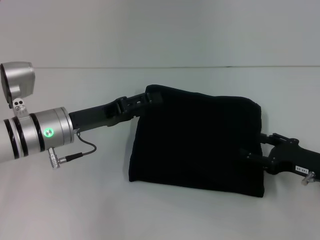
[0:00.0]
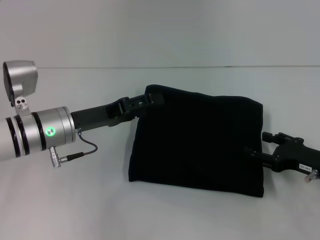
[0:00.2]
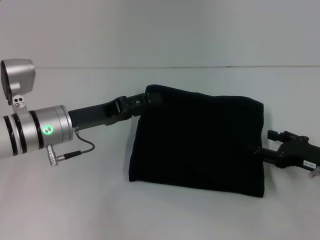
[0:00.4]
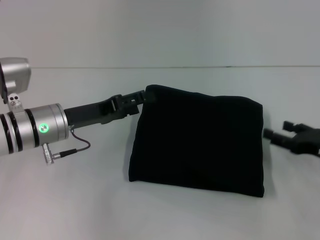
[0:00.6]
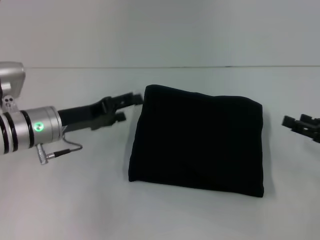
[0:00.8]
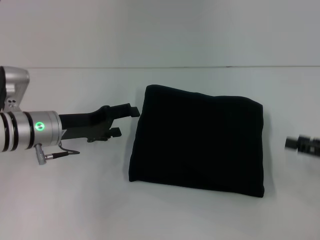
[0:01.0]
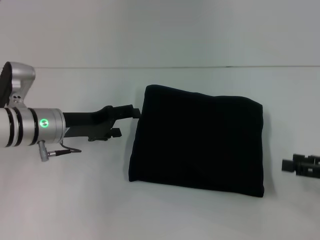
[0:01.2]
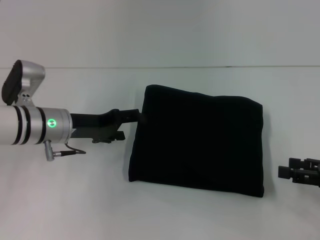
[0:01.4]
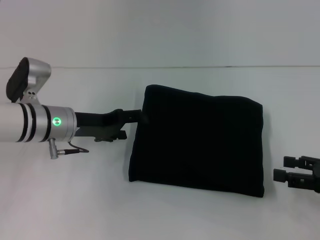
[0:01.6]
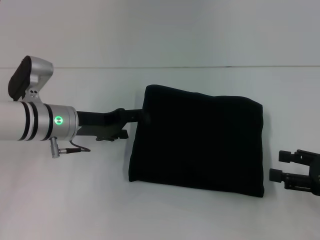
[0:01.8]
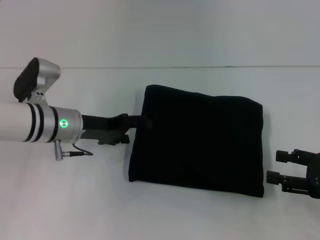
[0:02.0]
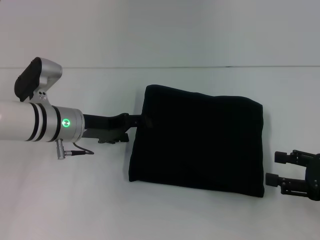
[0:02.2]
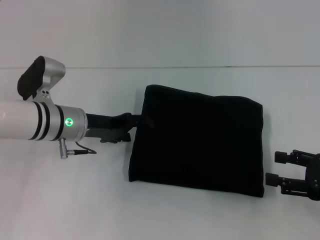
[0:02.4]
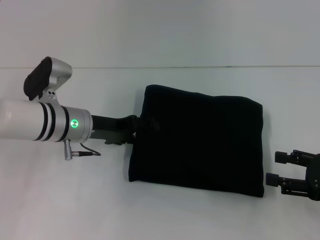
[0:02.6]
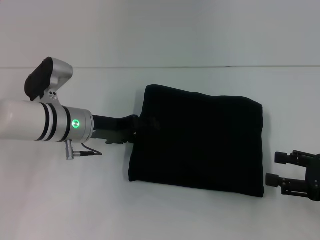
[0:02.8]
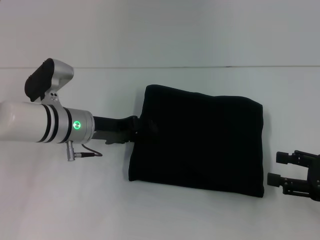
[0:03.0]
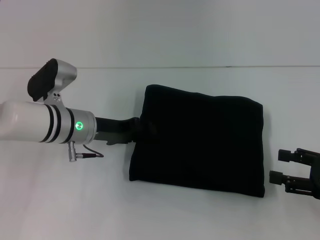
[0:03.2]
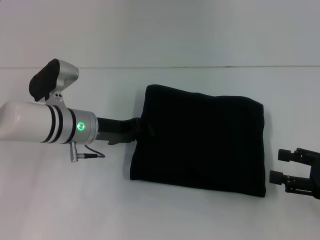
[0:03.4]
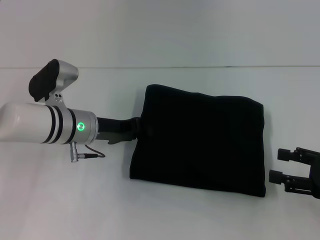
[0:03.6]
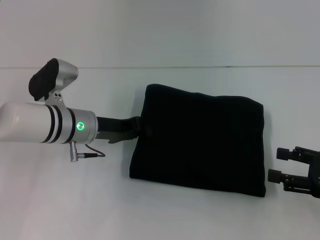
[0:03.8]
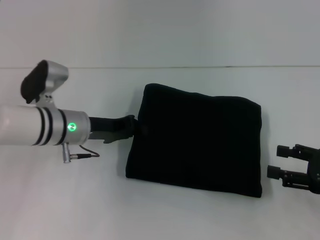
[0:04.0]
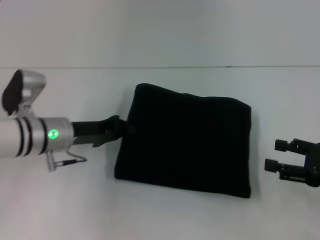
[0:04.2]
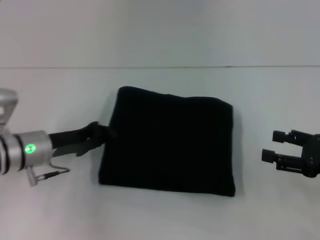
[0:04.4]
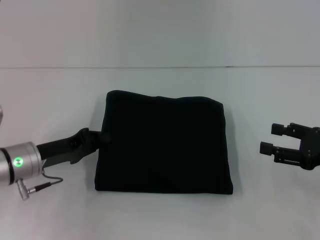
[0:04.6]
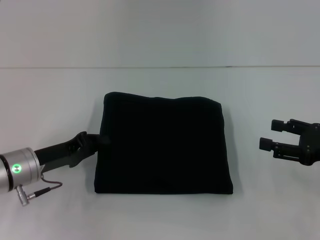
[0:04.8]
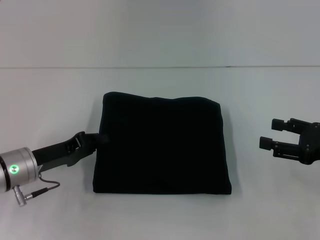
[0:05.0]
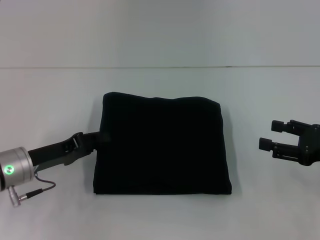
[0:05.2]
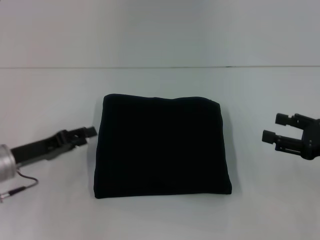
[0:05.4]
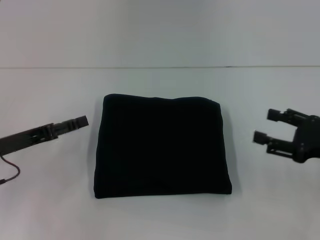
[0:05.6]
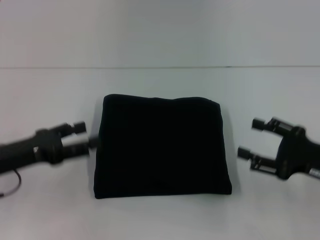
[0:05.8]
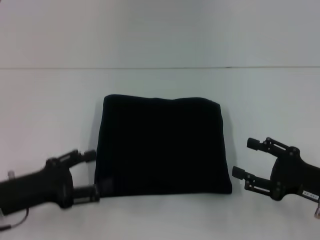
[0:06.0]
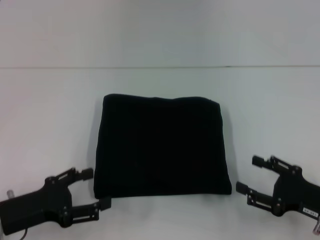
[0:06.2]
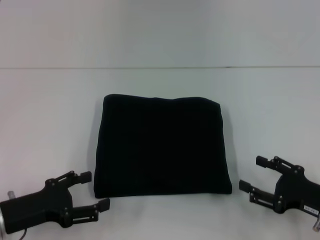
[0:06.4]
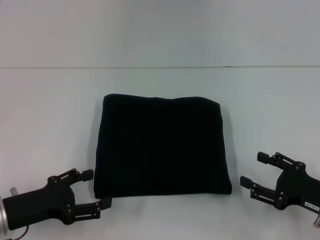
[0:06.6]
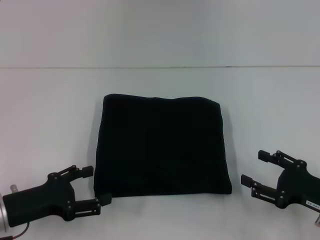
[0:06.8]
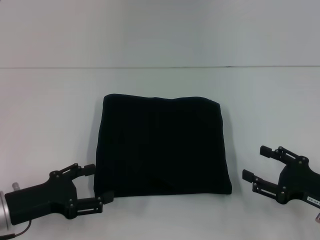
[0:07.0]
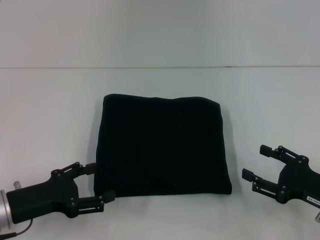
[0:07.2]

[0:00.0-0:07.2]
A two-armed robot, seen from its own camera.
0:00.0 to 0:01.4: The right gripper travels to the right by approximately 5 cm.
0:02.8 to 0:04.4: The left gripper moves to the left, some 5 cm, and closes up.
0:04.4 to 0:05.8: The left gripper moves to the left and backward, approximately 10 cm, and opens.
0:05.8 to 0:07.2: The right gripper changes place by roughly 5 cm; the left gripper shifts by roughly 5 cm.
